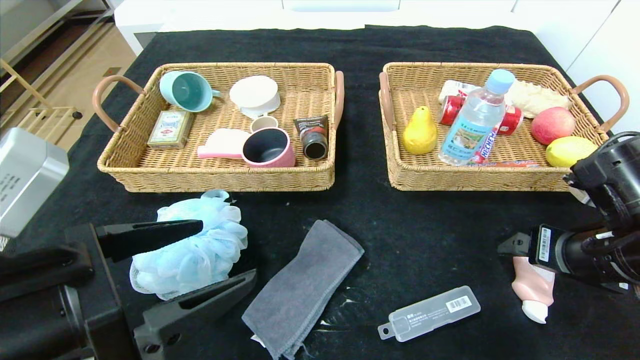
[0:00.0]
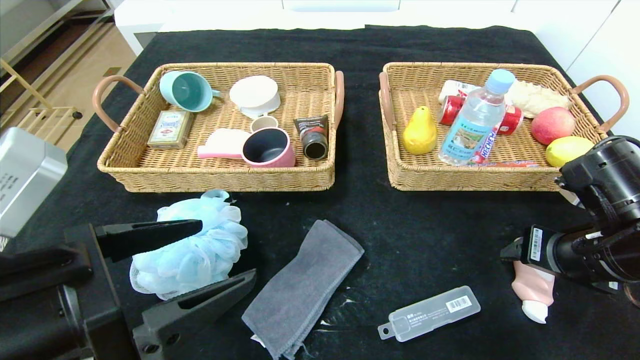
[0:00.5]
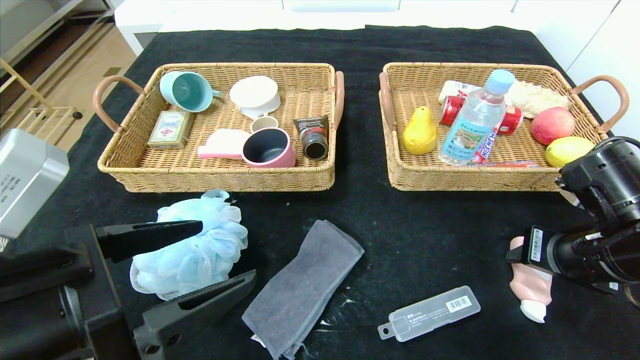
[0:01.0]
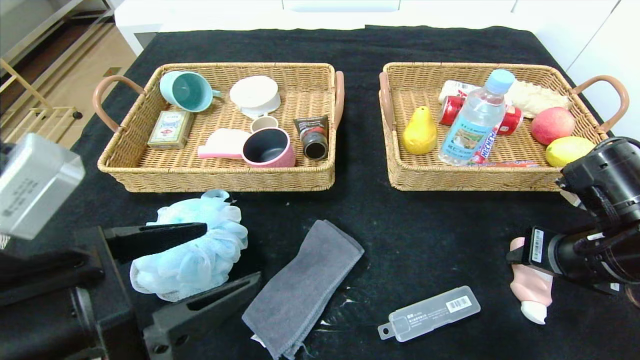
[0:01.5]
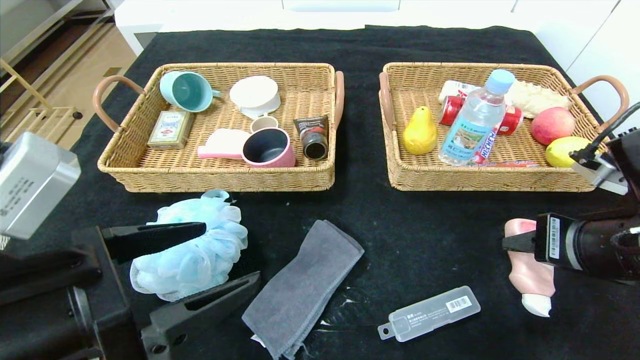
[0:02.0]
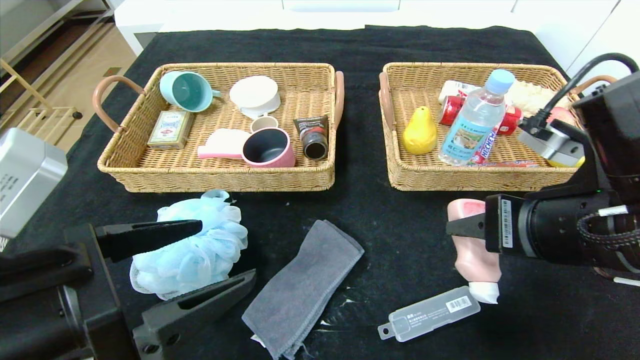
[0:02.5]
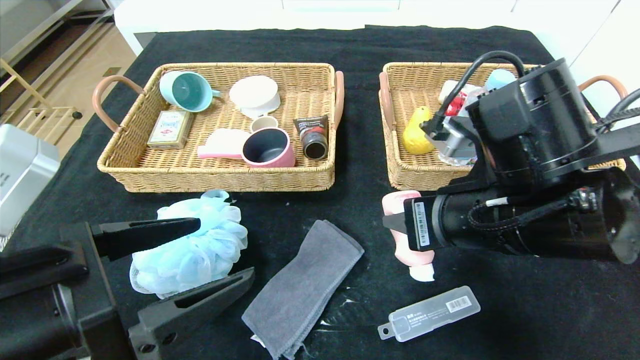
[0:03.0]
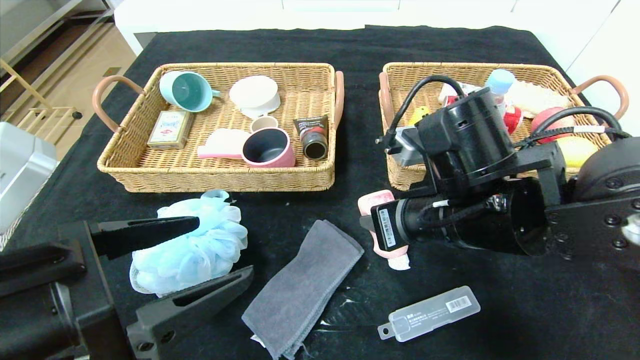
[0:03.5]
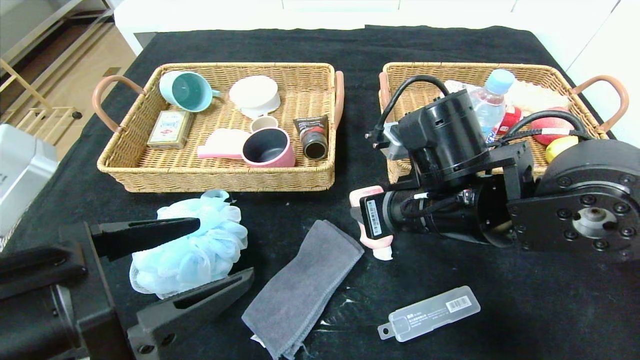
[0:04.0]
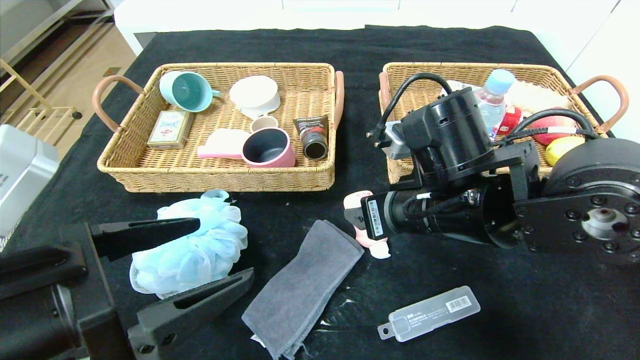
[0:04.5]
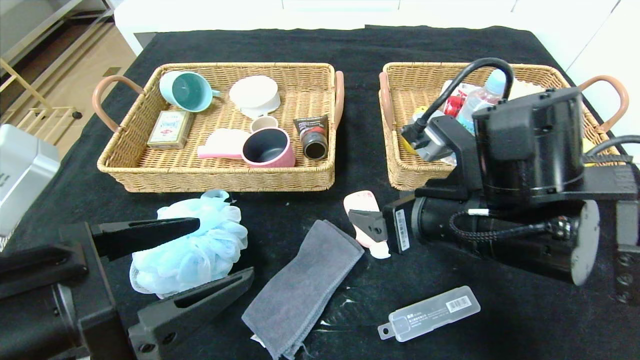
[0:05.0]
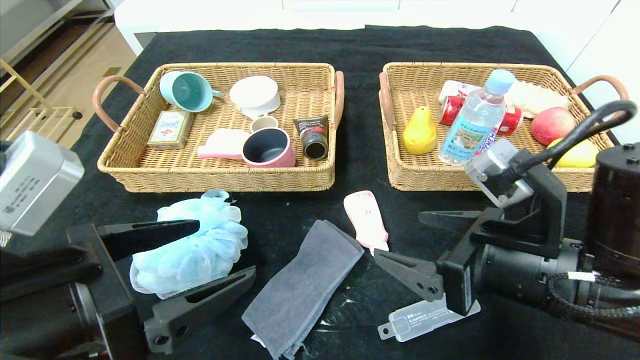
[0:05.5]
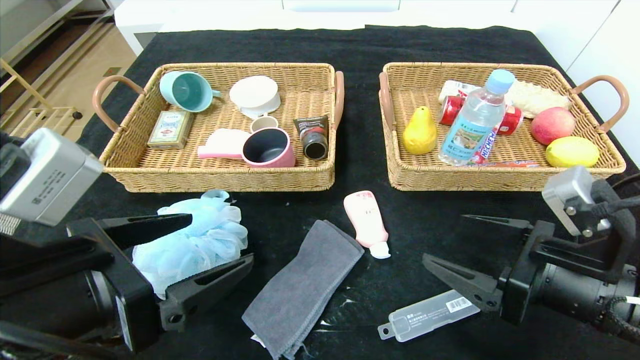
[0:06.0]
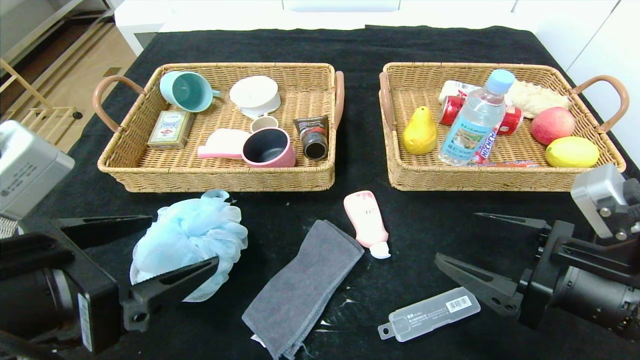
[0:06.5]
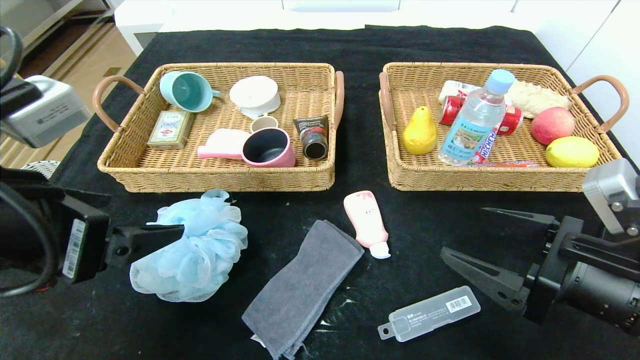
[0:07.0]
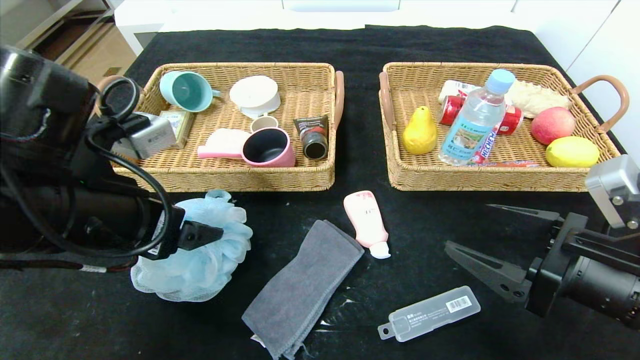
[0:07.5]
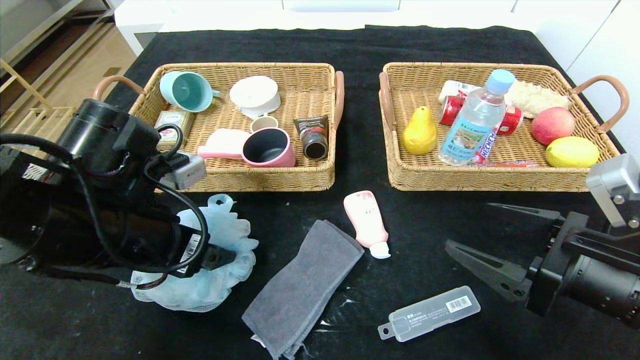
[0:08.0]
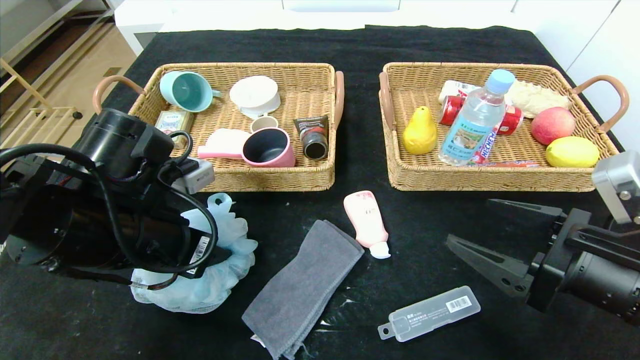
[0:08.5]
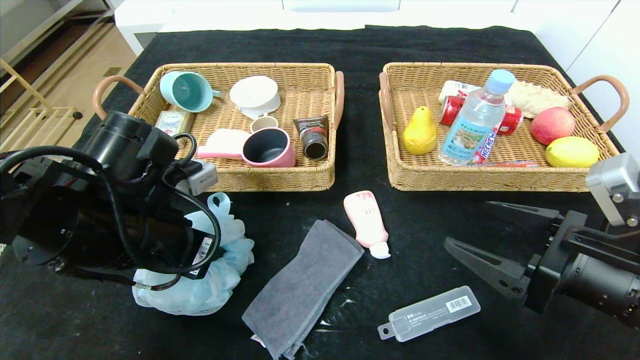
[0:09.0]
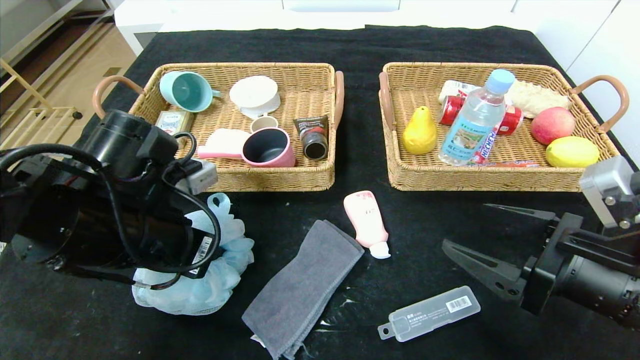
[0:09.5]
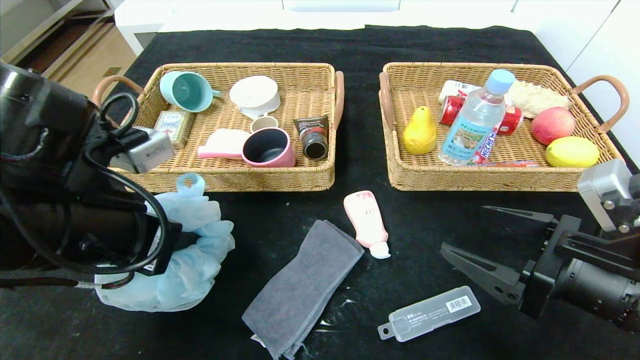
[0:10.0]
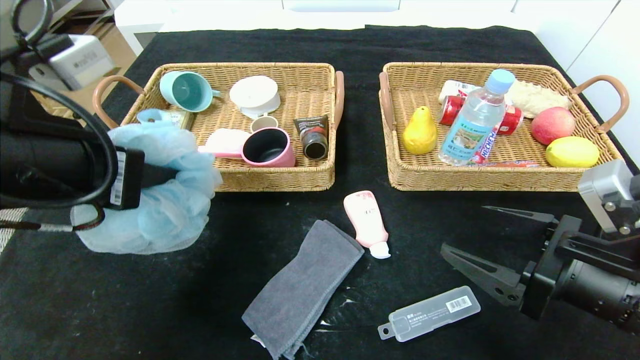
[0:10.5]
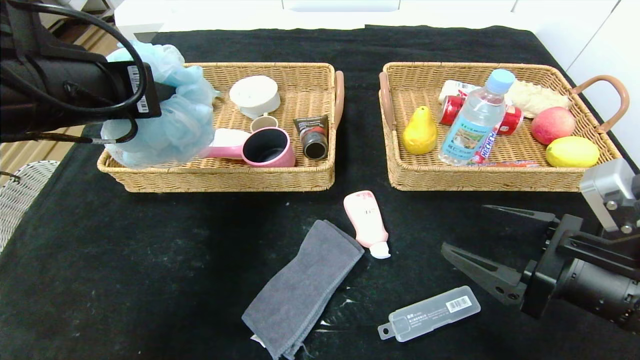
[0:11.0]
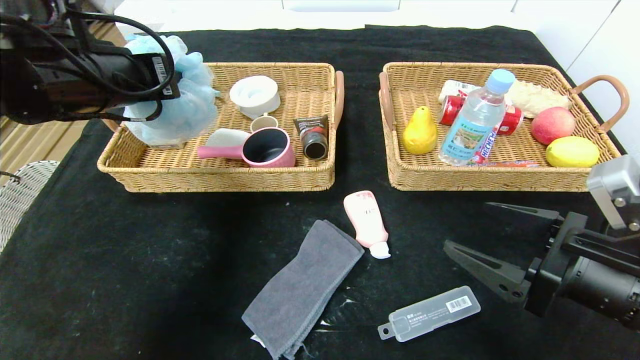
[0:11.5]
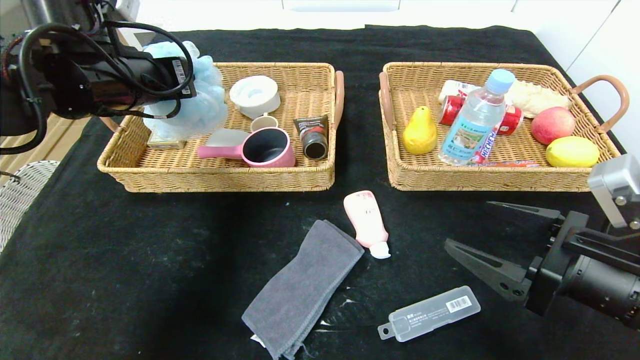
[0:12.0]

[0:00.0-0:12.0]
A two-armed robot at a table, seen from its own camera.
Step, 0:00.0 to 0:04.0: Place the detergent in the center of the table.
0:00.0 to 0:02.0: The right gripper moves approximately 5 cm, and closes its fingers.
0:02.0 to 0:04.0: The right gripper travels to the left and forward by roughly 15 cm.
0:04.0 to 0:06.0: The right gripper is displaced to the right and backward by some 15 cm, and opens its fingers.
0:06.0 to 0:08.0: The left gripper goes about 10 cm forward.
0:08.0 to 0:10.0: The left gripper closes its fingers.
0:10.0 to 0:12.0: The left gripper shifts roughly 15 cm forward and upward.

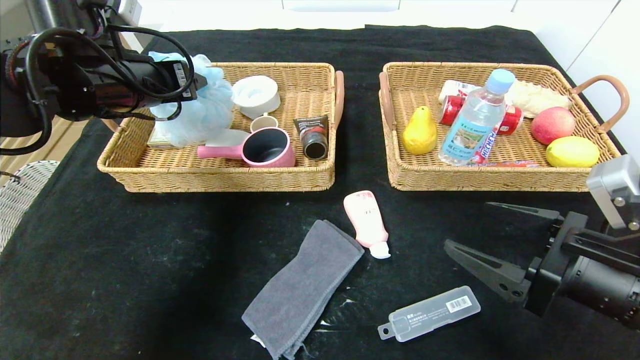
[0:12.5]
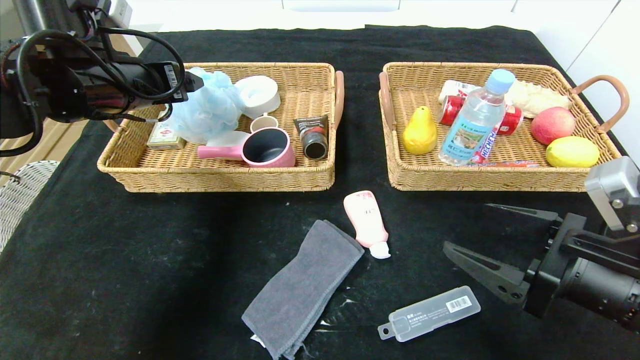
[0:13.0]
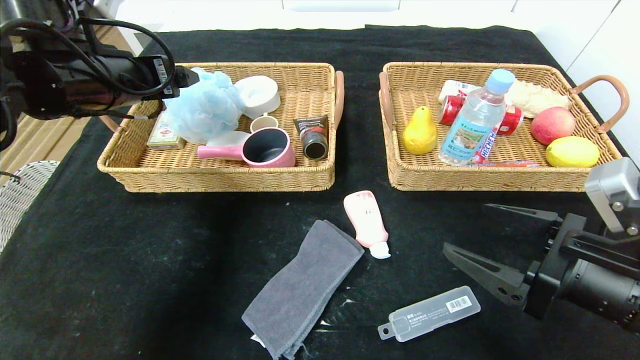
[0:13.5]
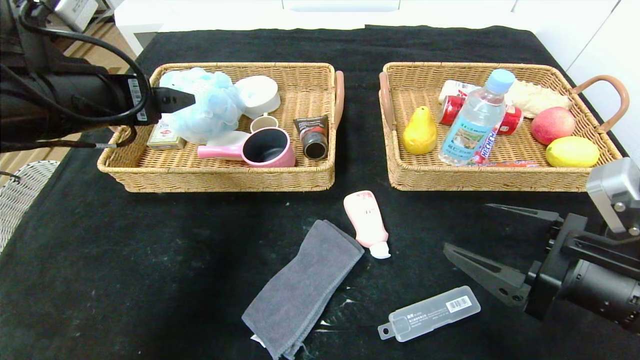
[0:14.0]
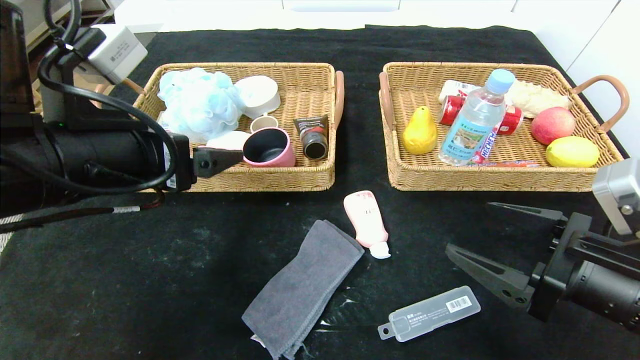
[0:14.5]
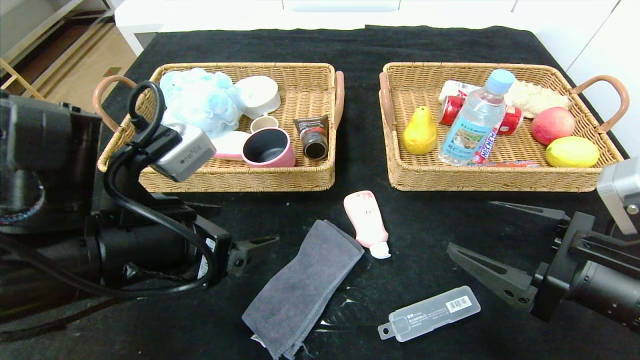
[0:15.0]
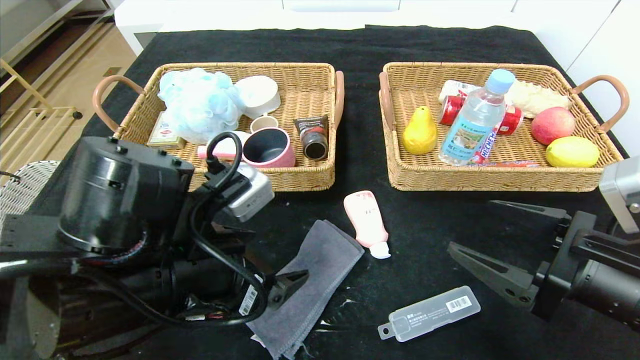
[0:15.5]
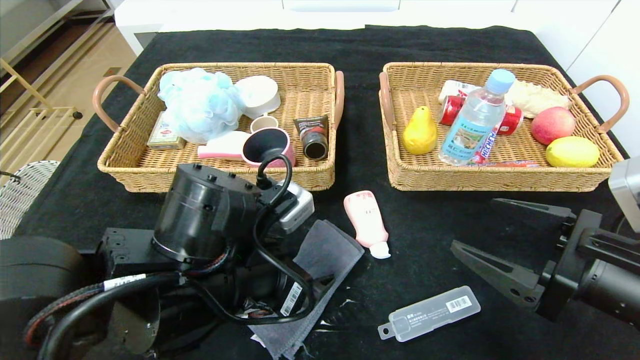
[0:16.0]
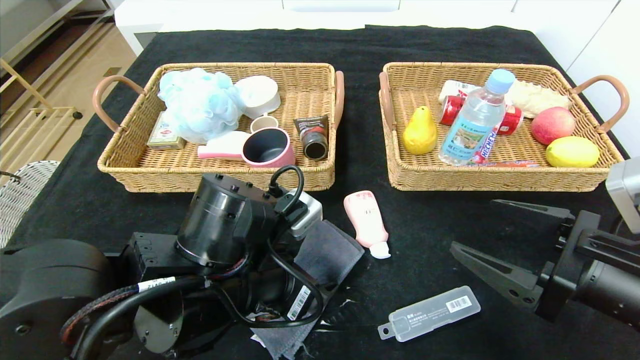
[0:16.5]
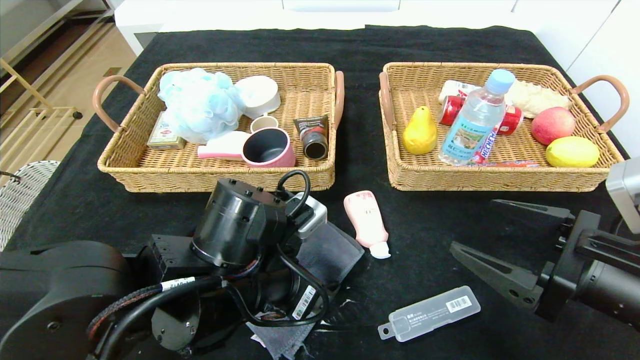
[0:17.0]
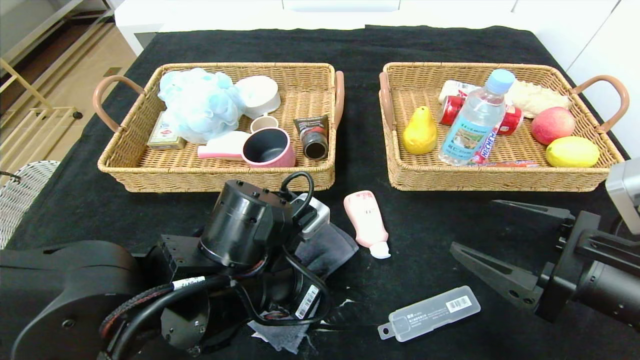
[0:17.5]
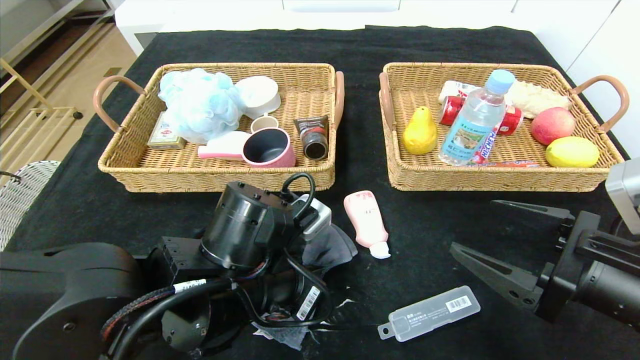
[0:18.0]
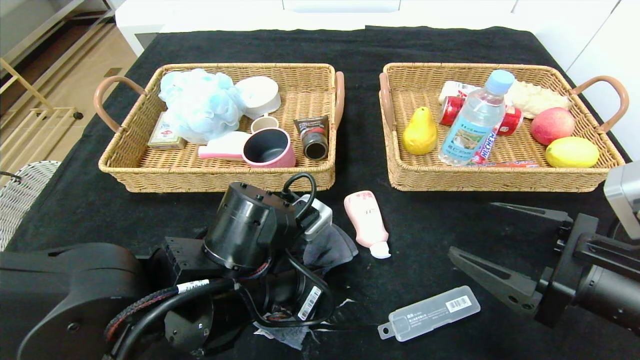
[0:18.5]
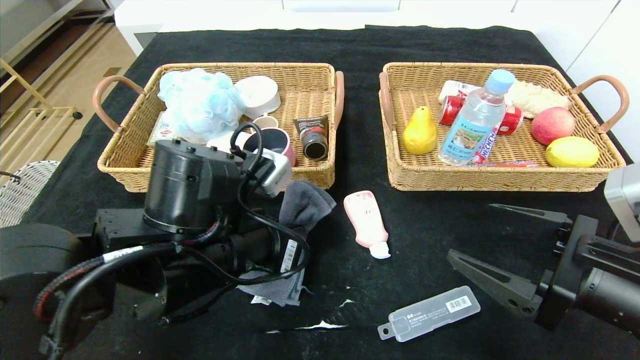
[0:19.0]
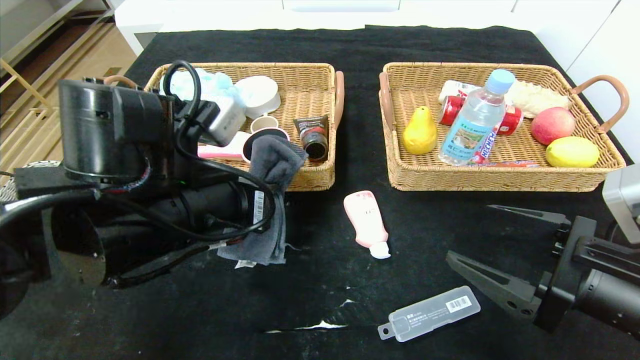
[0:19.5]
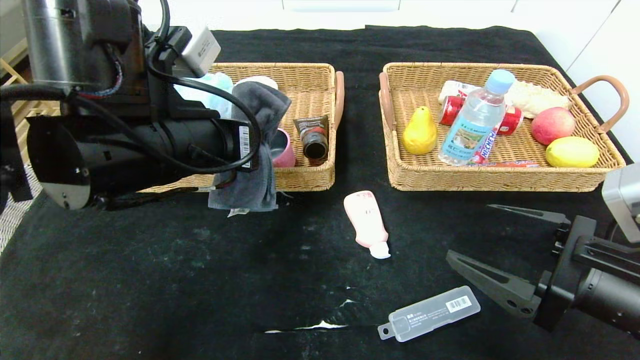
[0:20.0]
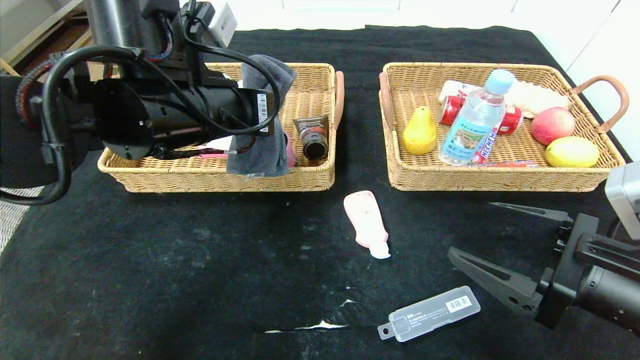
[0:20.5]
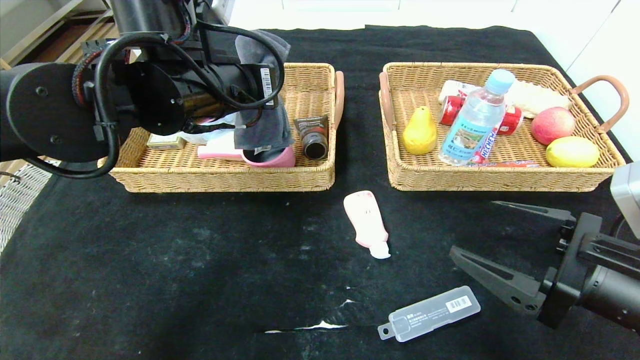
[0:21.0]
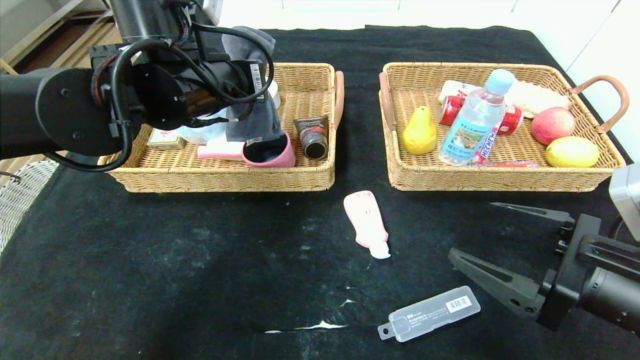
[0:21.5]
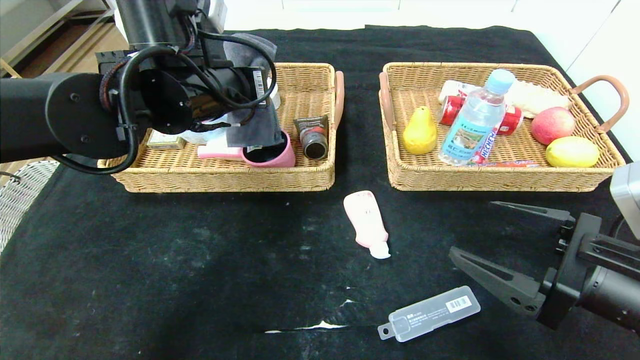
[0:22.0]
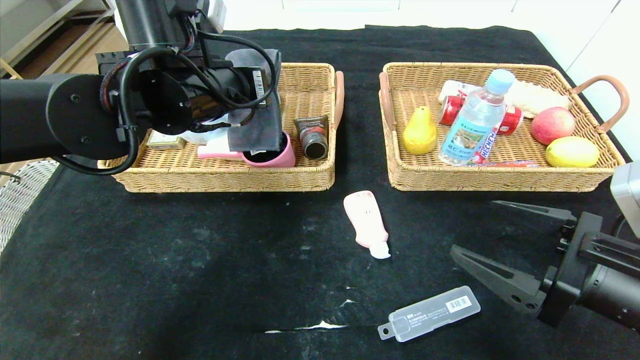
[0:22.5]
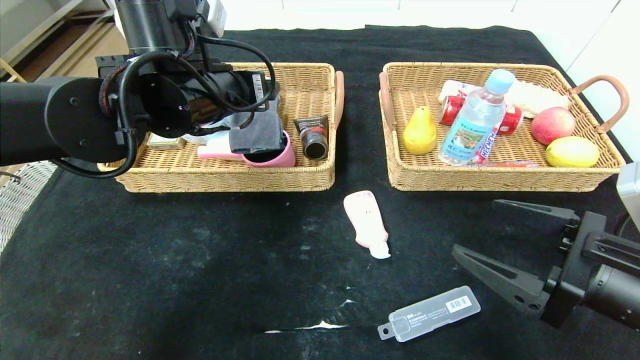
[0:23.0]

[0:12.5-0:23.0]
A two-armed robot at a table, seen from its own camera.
0:12.5 to 0:14.5: The left gripper shifts roughly 15 cm backward.
0:14.5 to 0:16.5: The left gripper is displaced downward and to the right by roughly 15 cm.
0:16.5 to 0:19.0: The left gripper closes its fingers.
0:19.0 to 0:21.0: The left gripper travels upward and forward by some 15 cm.
0:21.0 to 0:23.0: The left gripper opens up.
